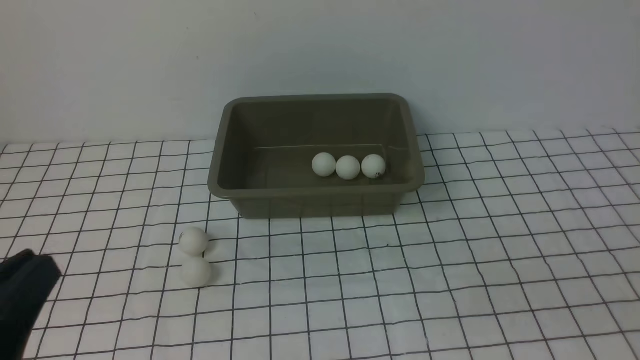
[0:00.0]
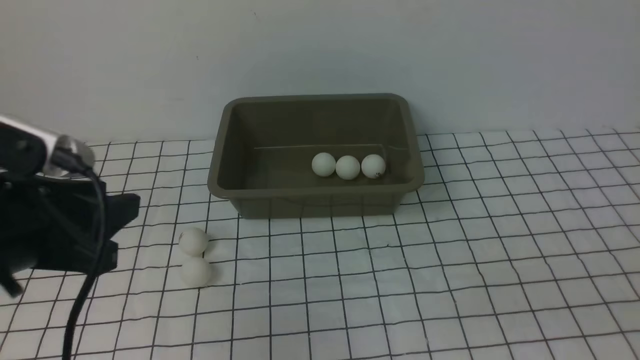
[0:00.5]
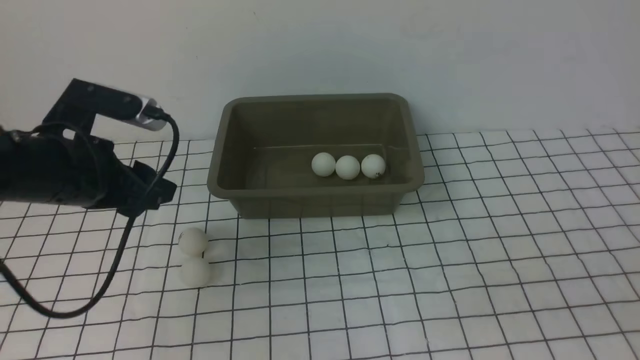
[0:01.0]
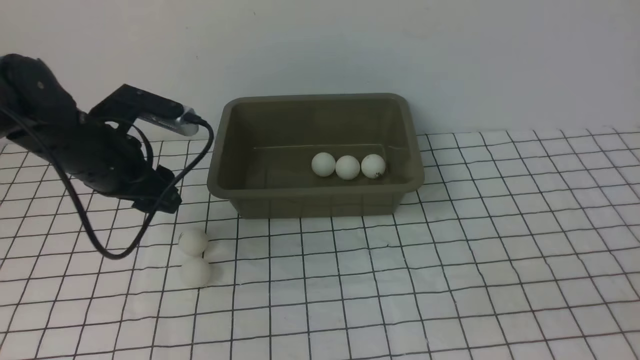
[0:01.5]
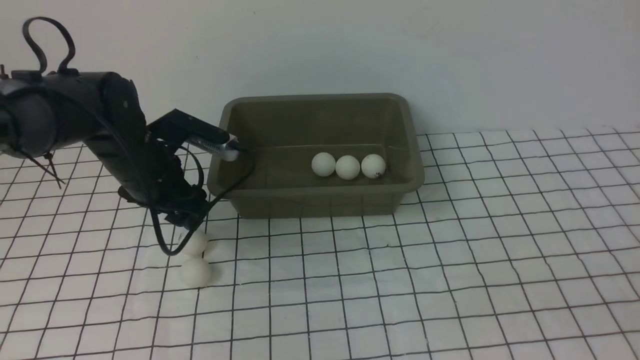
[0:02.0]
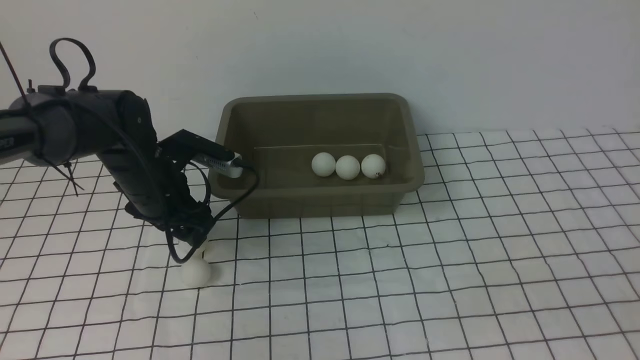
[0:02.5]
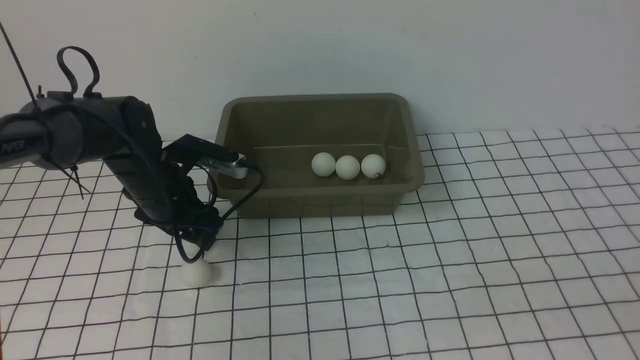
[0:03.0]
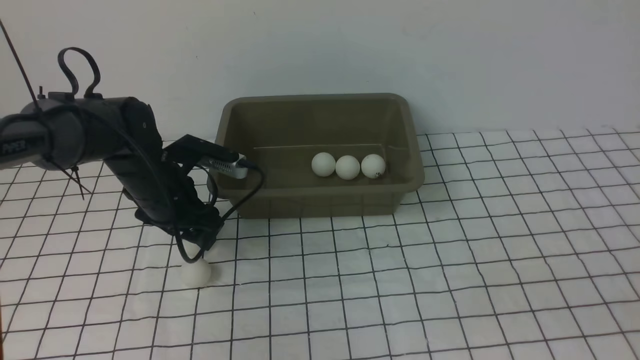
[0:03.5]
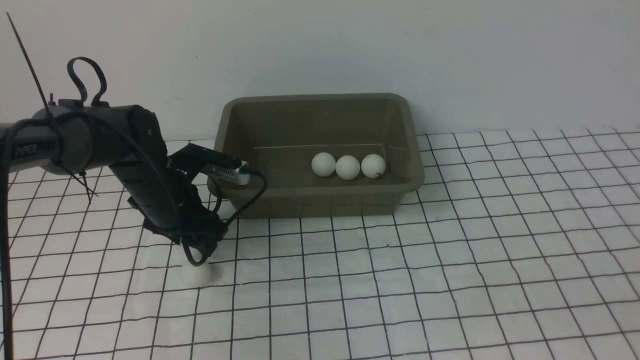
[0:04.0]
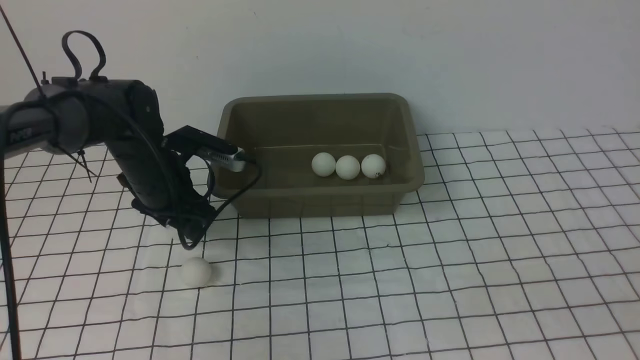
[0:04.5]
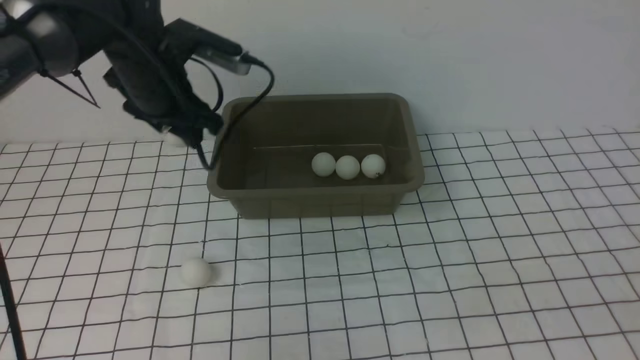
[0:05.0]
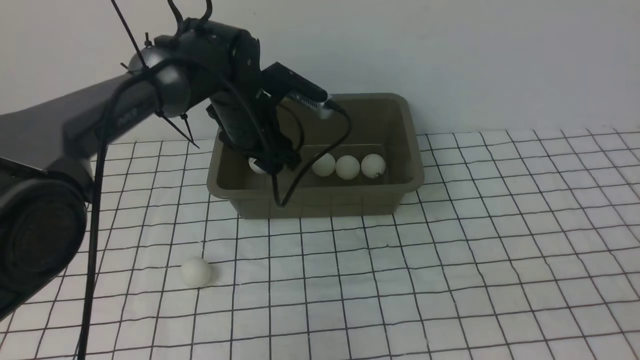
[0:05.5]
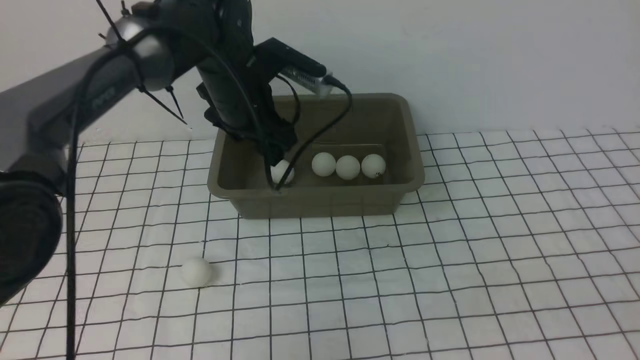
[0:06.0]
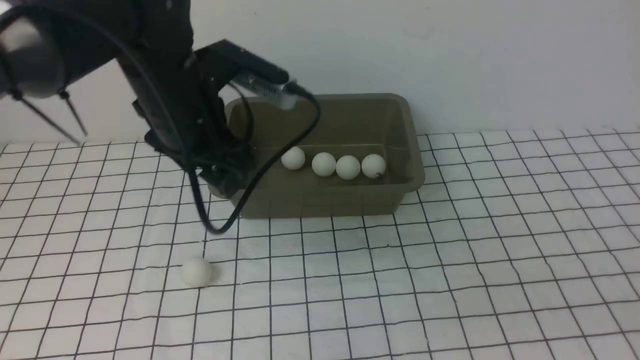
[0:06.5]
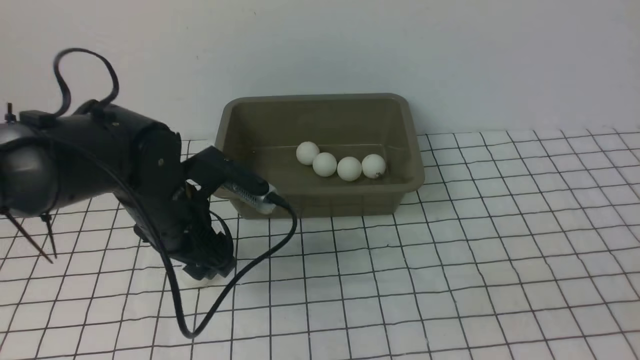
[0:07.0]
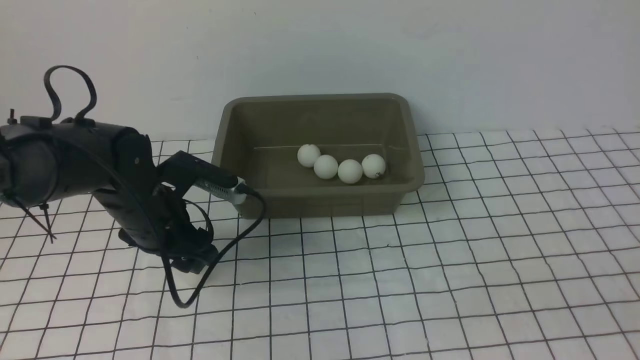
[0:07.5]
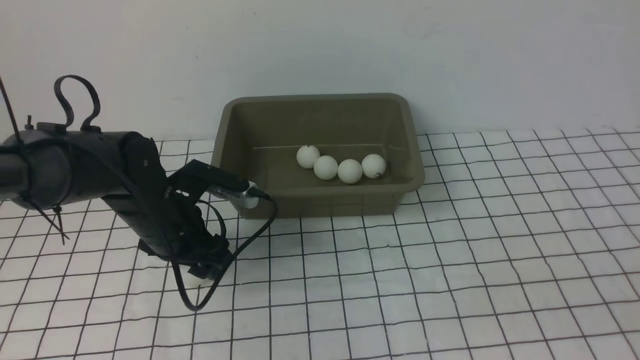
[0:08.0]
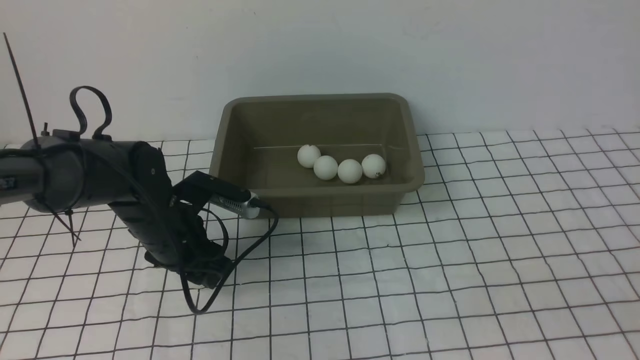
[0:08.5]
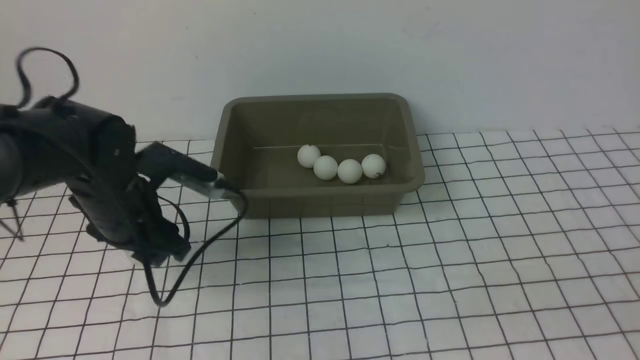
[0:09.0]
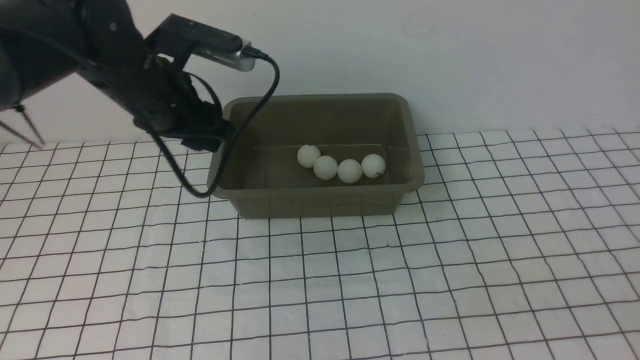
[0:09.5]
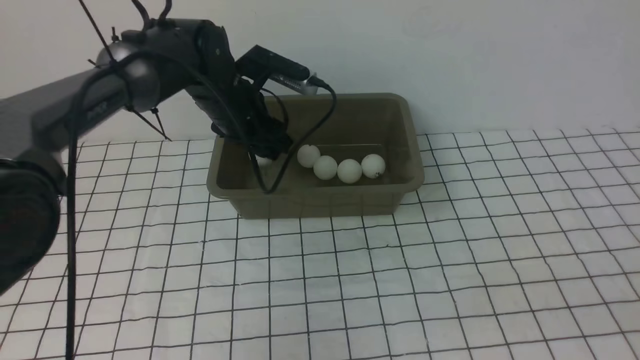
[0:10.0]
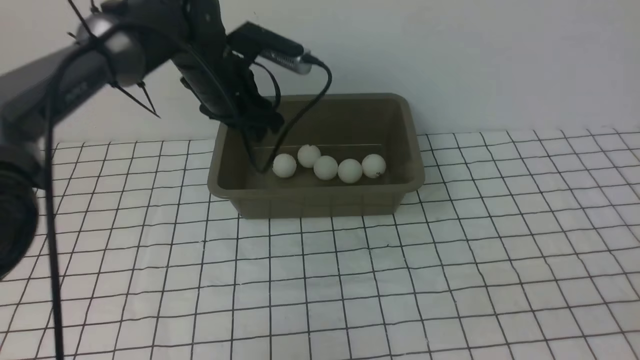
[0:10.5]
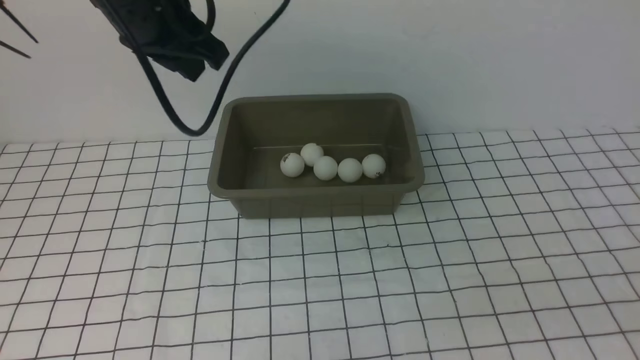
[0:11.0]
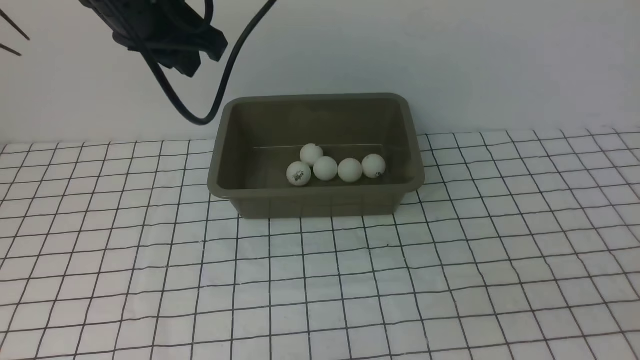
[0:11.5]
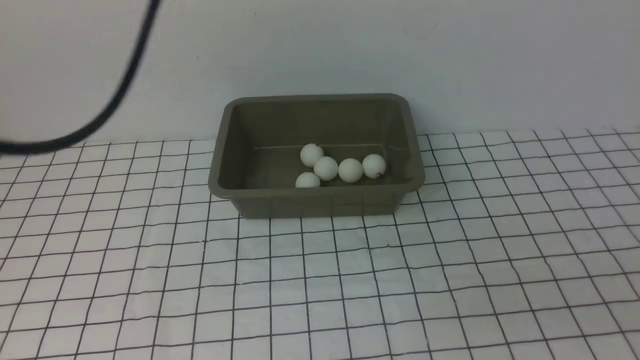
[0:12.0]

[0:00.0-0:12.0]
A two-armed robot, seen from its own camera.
Step, 0:00.0 to 0:04.5: use the left arm to clamp the table tennis ball closest to it.
Step, 0:05.0 to 0:05.5: use the left arm to put the table tennis ball into the box.
Step, 0:06.0 to 0:09.0: use the left arm to clamp the table tennis ball closest to it.
Step, 0:09.5 to 0:10.0: use the left arm to put the table tennis ball into the box.
0:00.0 to 0:02.0: The left gripper travels forward by some 30 cm, and opens its fingers.
0:02.0 to 0:04.0: There are only small adjustments of the grippers.
0:04.0 to 0:06.0: The left gripper moves upward and to the right, roughly 15 cm.
0:06.0 to 0:08.0: The left gripper shifts about 15 cm downward, backward and to the left.
0:08.0 to 0:10.0: The left gripper shifts approximately 15 cm forward, upward and to the right.
0:10.0 to 0:12.0: The left gripper moves upward and backward, some 30 cm, and closes up.

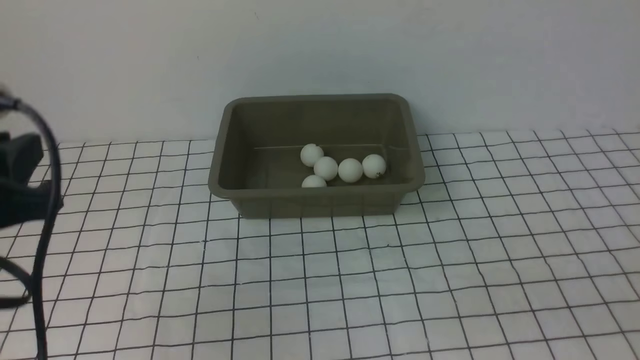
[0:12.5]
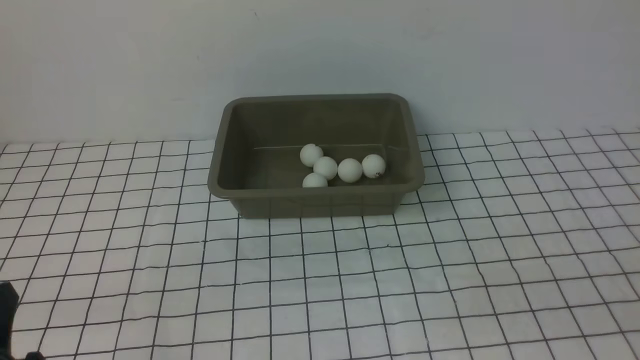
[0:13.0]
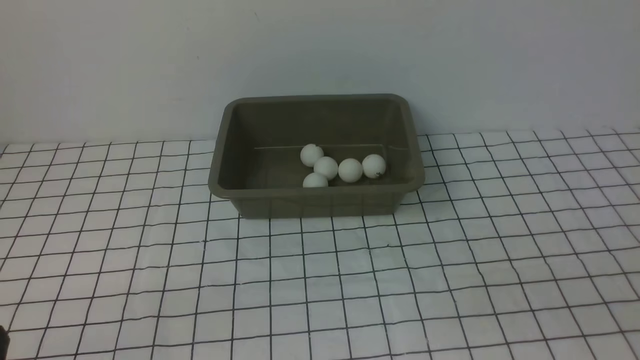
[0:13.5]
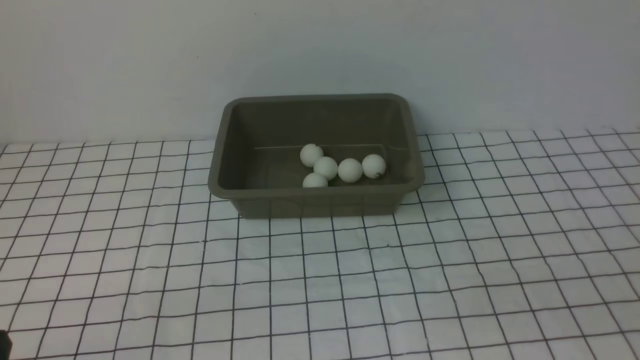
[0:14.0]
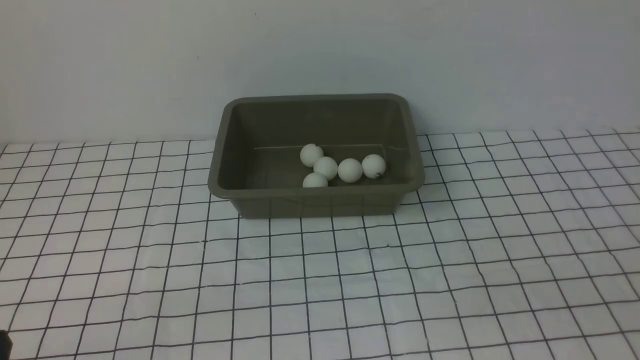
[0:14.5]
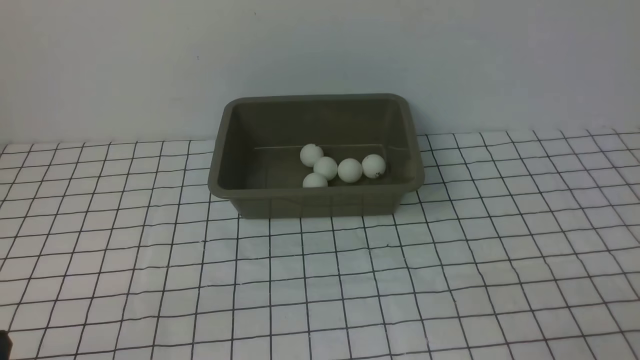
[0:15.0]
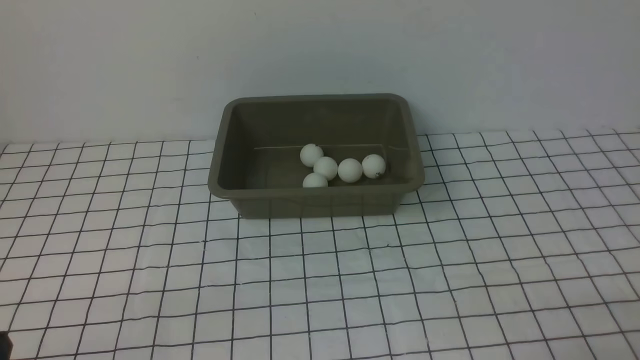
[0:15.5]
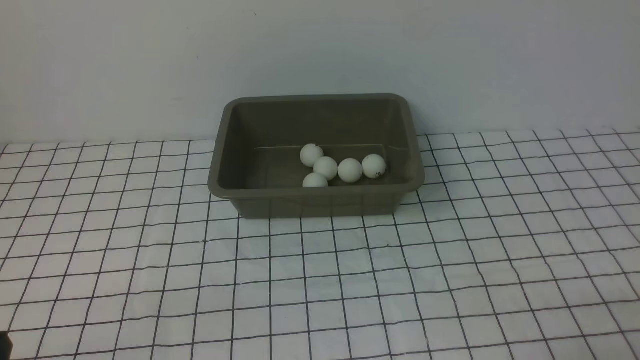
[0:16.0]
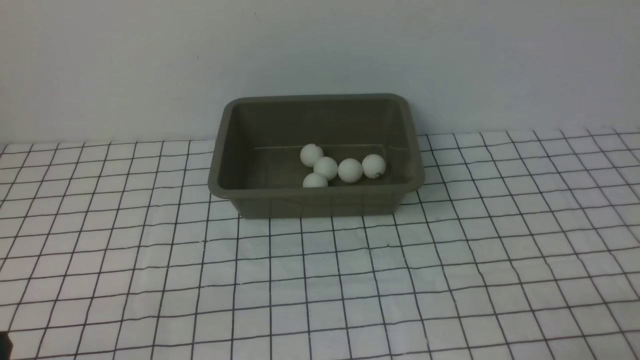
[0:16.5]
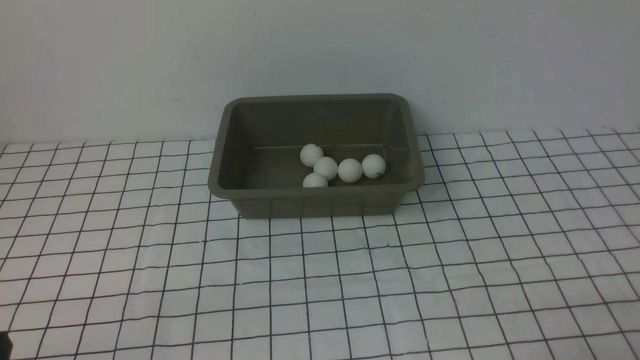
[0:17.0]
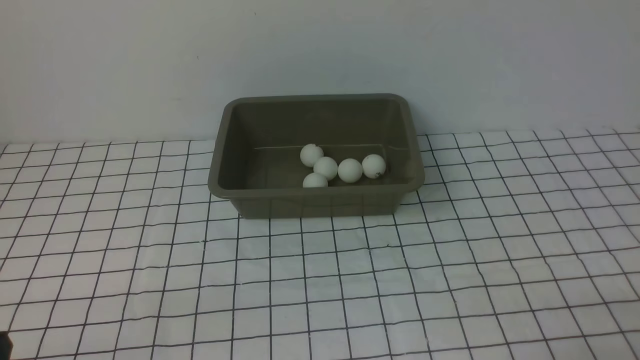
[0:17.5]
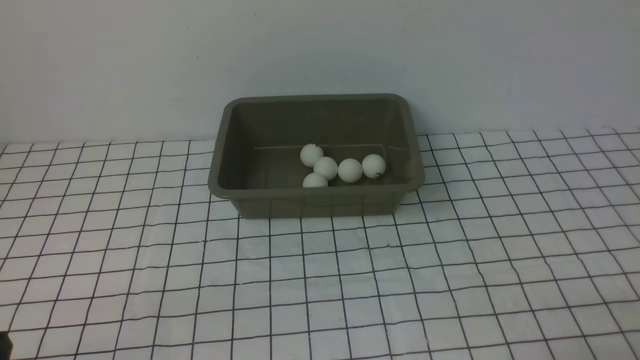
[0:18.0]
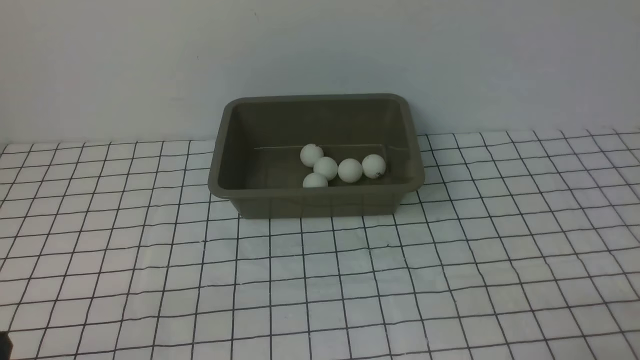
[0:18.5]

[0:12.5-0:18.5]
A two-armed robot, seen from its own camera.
0:12.5 to 0:14.5: The left gripper goes about 15 cm downward and backward.
0:16.5 to 0:18.5: The two grippers keep their place.
